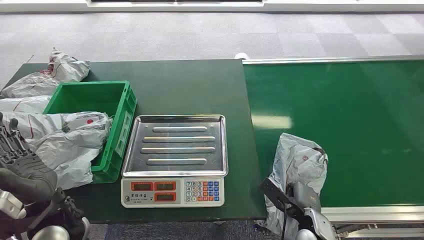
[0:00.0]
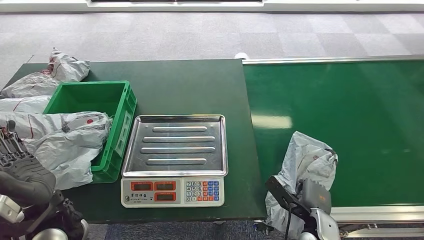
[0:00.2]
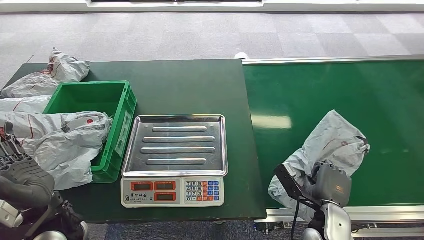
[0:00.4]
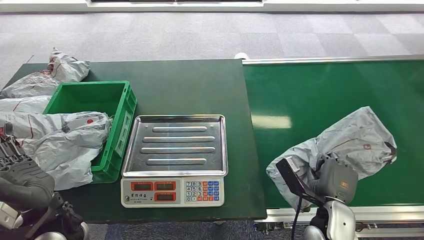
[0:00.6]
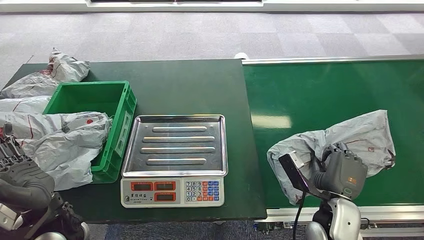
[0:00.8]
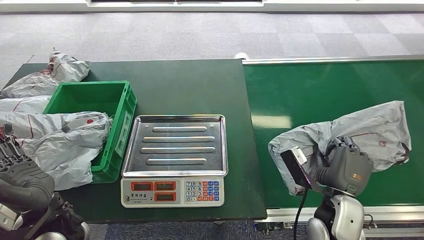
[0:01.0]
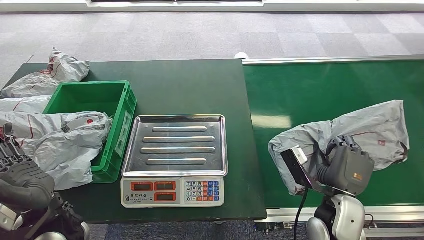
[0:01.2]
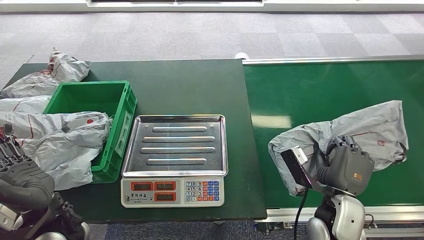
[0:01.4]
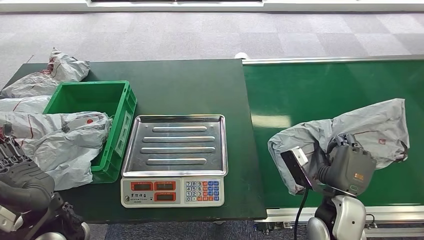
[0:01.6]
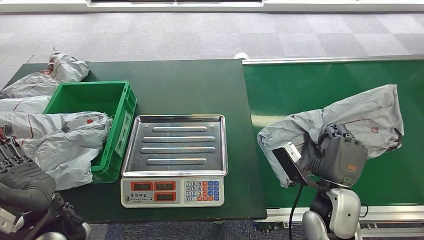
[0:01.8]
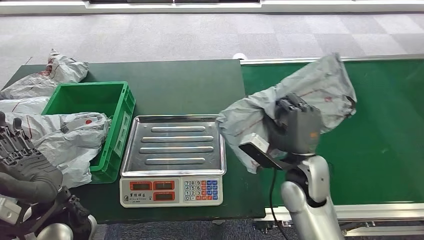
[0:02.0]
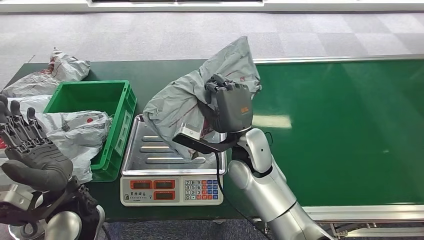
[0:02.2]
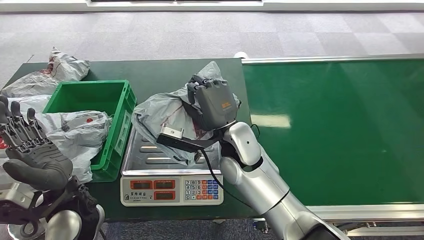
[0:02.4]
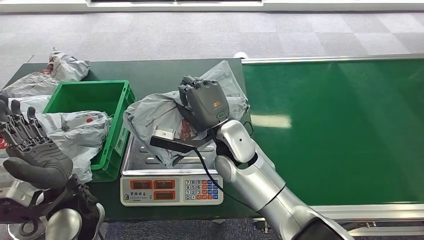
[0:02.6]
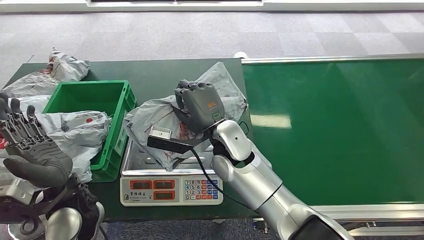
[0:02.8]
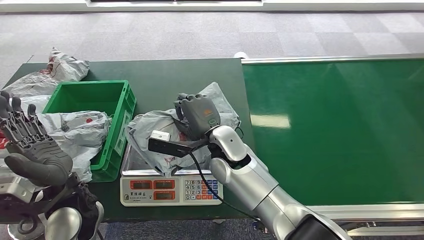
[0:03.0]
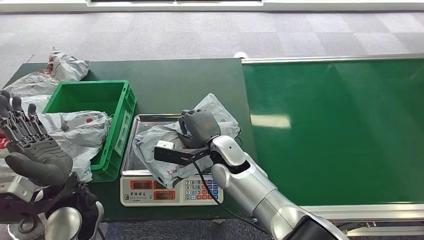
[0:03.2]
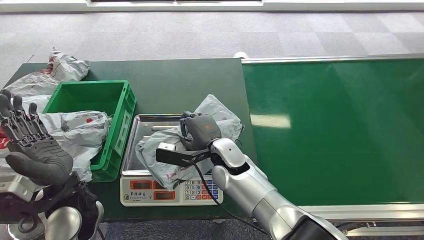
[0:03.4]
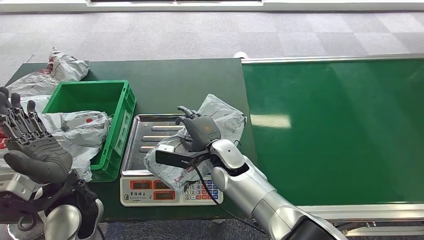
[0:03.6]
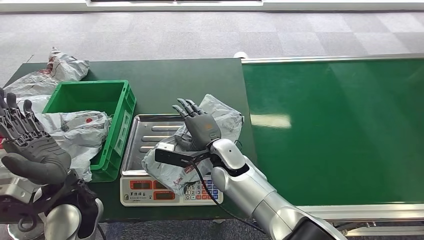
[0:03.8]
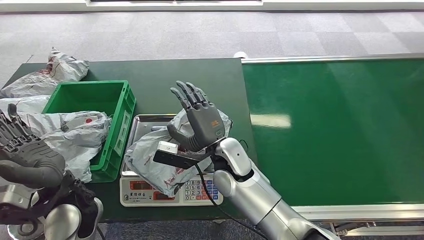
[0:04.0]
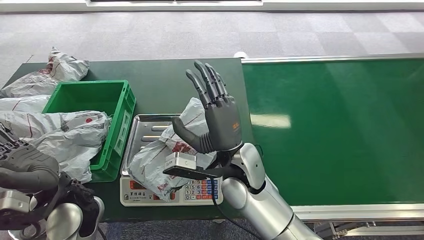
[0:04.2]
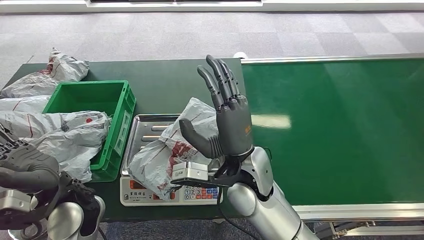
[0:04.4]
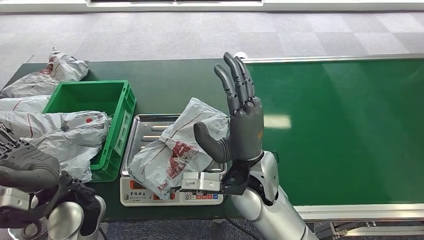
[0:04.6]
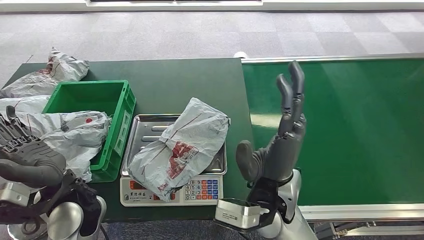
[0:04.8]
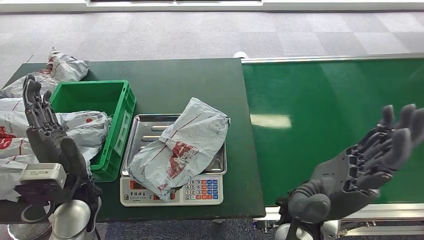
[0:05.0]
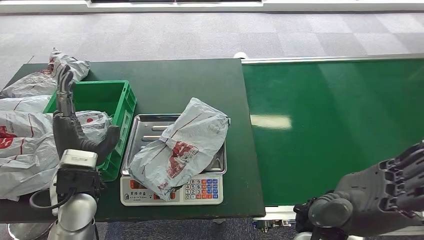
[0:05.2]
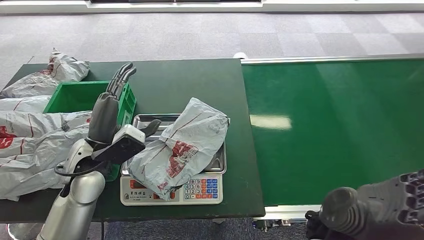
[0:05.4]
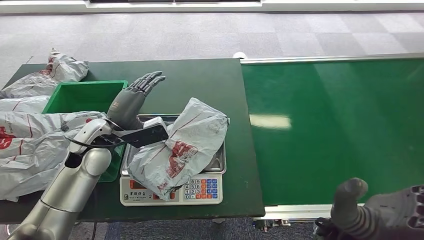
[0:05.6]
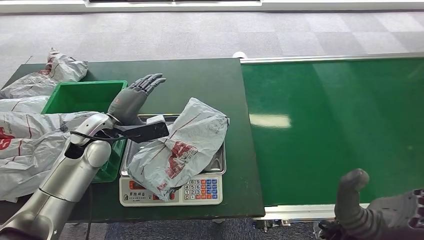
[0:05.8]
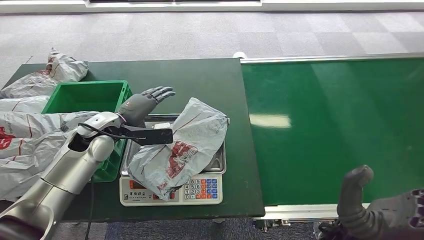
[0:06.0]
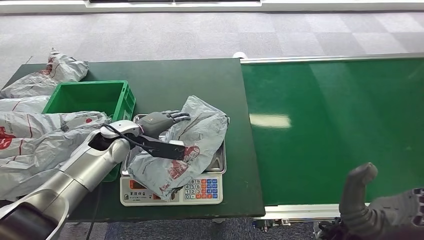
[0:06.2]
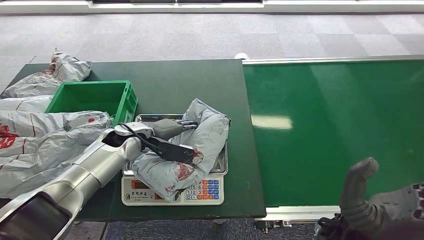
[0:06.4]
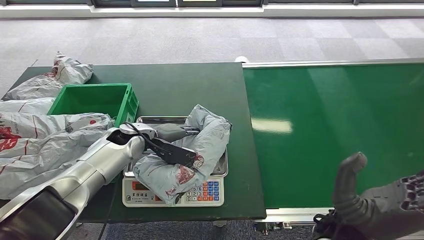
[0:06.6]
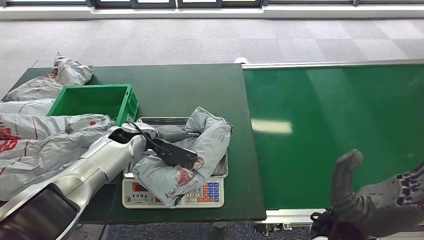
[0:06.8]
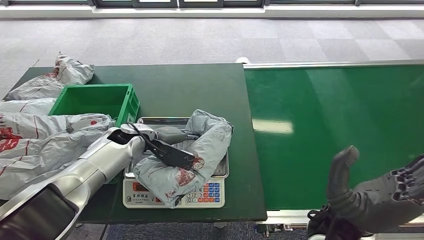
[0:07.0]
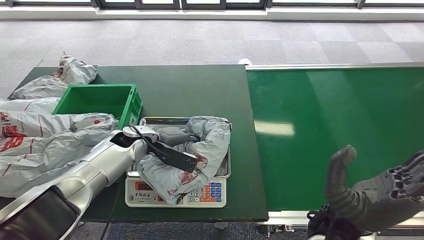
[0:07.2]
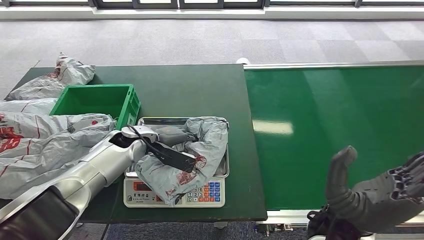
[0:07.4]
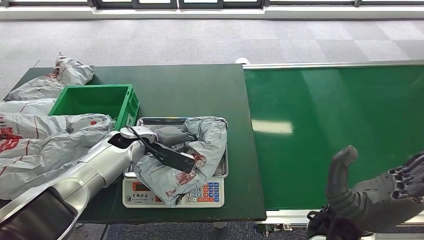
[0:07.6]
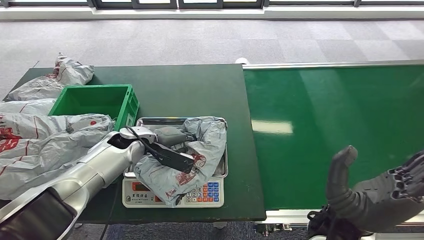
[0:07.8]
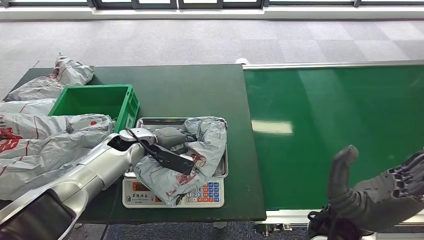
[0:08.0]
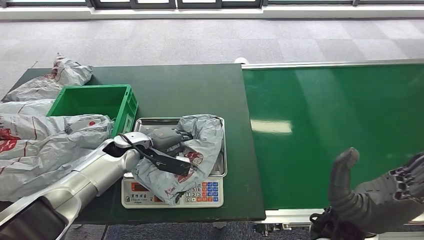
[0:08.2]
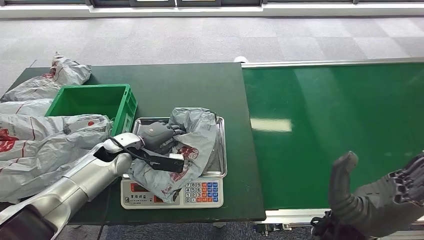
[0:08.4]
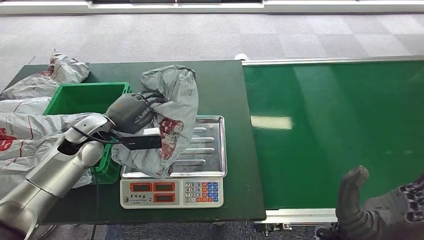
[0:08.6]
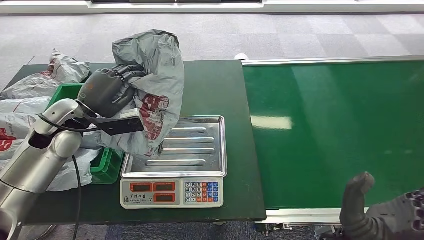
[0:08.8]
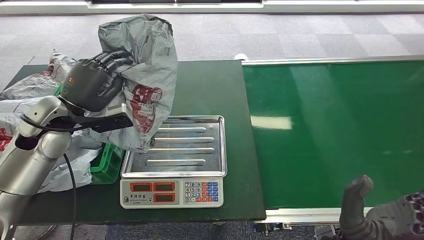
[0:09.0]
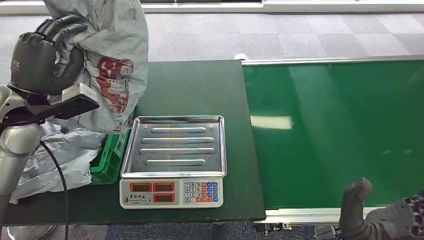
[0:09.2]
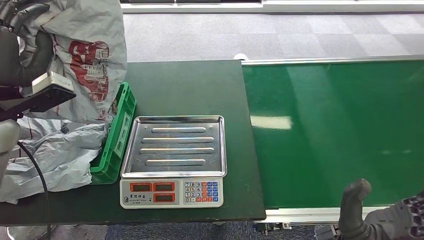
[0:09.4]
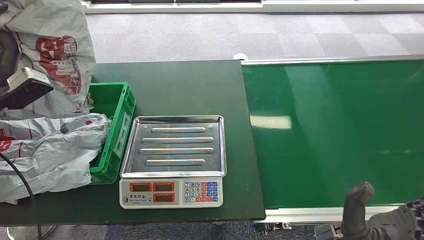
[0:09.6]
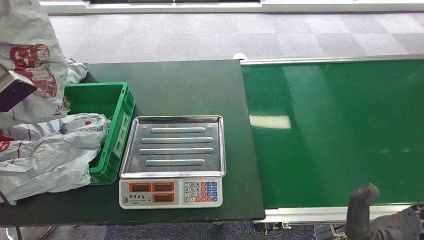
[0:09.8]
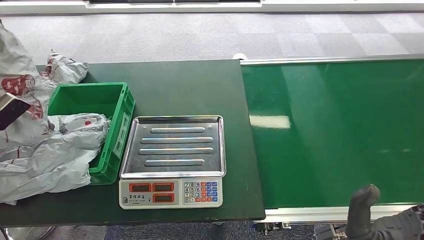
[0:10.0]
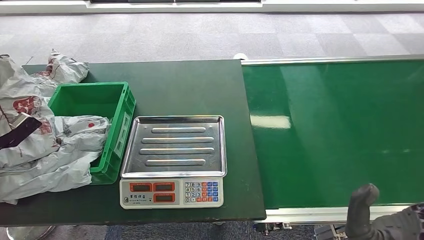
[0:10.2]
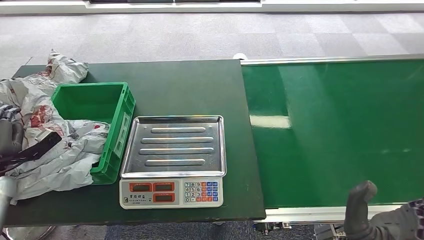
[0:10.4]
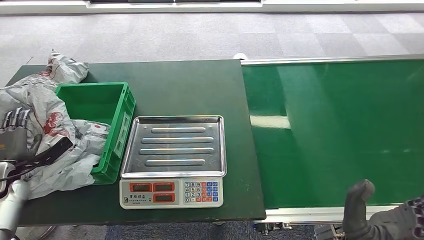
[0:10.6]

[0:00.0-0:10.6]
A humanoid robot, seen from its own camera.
Step, 0:00.0 to 0:01.2: Pick up the package from the conveyor belt.
Step, 0:01.4 to 0:05.0: Place the package onto the inbound machine.
Step, 0:07.0 to 0:09.4: Pick up the package from the inbound machine.
Step, 0:09.6 to 0:10.6: Place the package into the parcel locker.
0:03.0 to 0:04.6: The right hand moves backward and to the right, approximately 10 cm.
